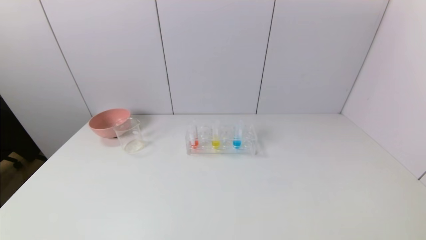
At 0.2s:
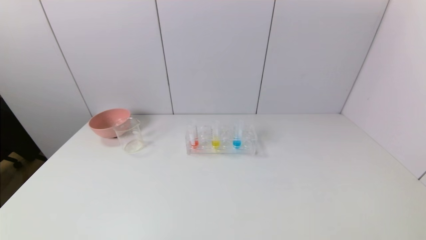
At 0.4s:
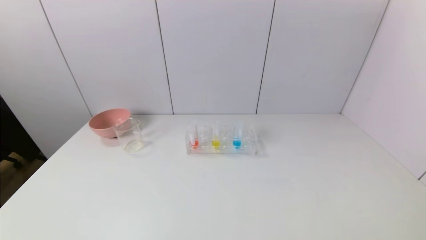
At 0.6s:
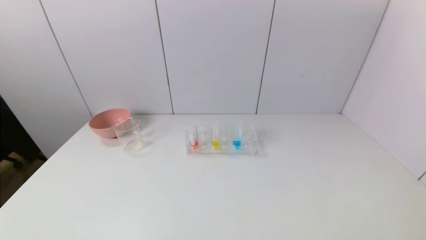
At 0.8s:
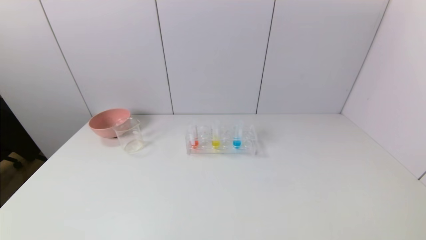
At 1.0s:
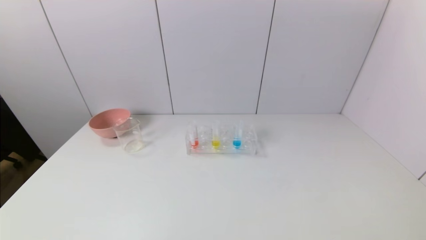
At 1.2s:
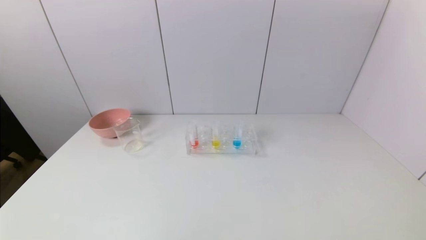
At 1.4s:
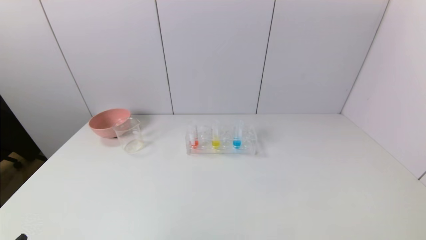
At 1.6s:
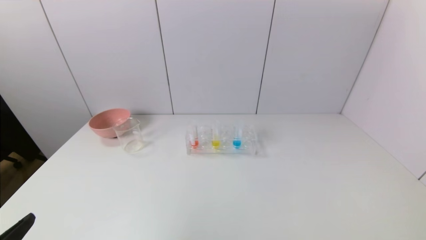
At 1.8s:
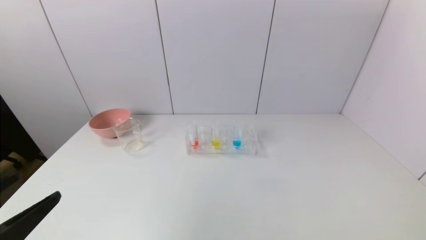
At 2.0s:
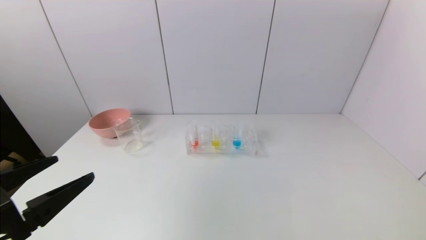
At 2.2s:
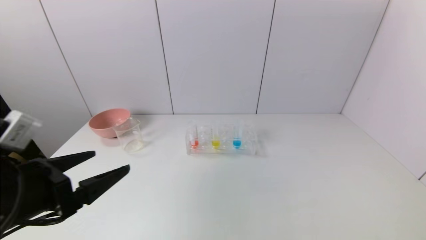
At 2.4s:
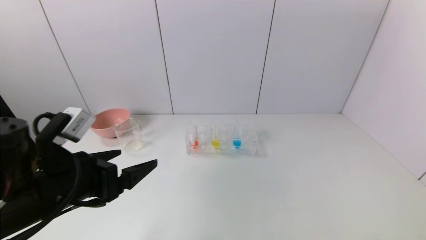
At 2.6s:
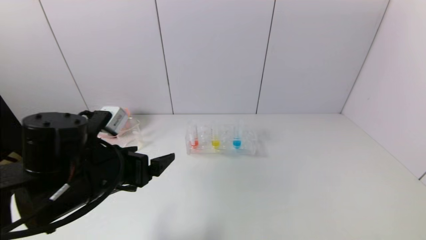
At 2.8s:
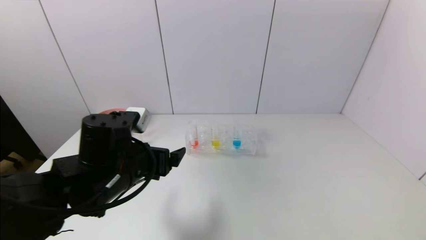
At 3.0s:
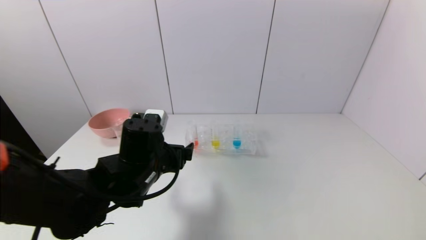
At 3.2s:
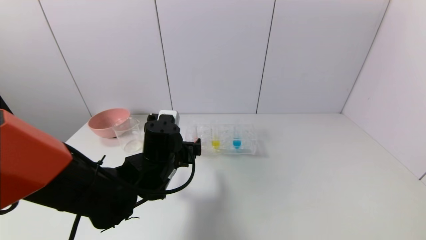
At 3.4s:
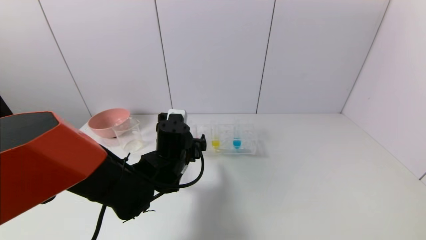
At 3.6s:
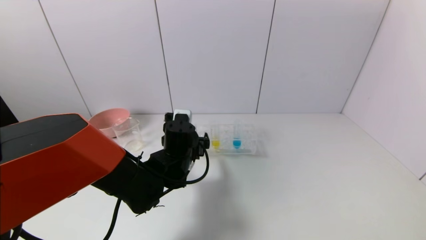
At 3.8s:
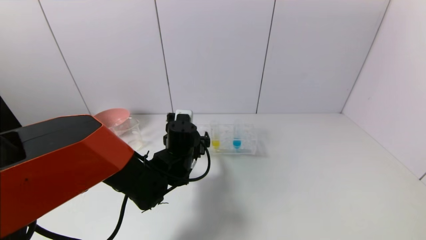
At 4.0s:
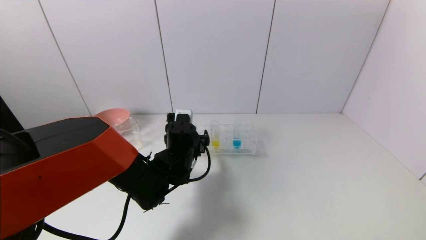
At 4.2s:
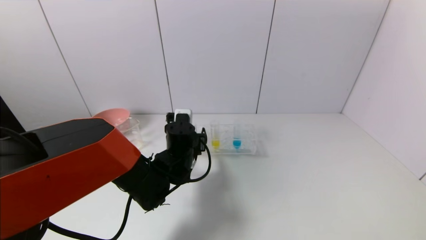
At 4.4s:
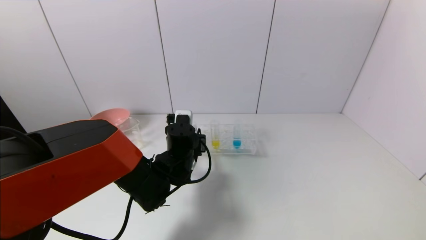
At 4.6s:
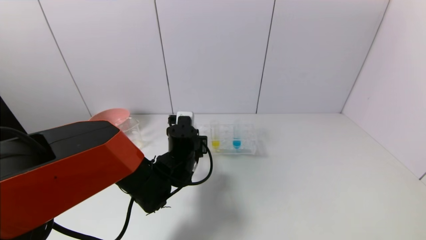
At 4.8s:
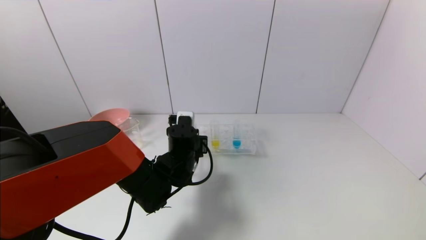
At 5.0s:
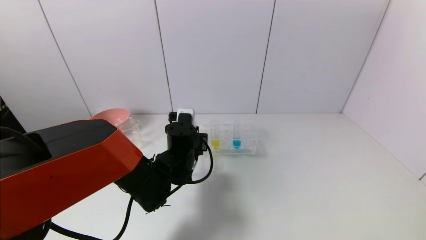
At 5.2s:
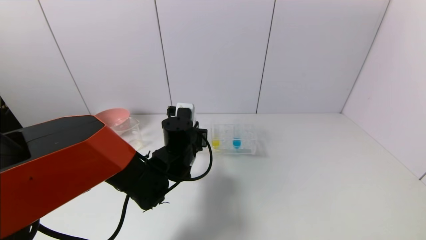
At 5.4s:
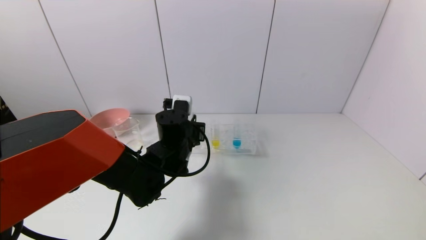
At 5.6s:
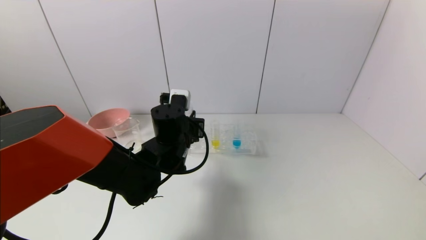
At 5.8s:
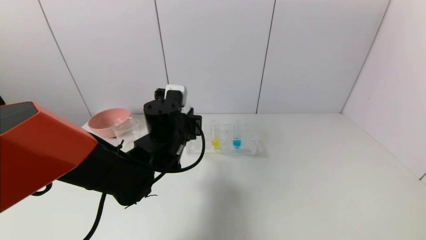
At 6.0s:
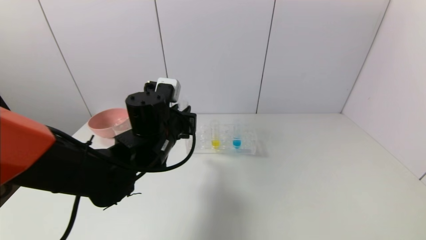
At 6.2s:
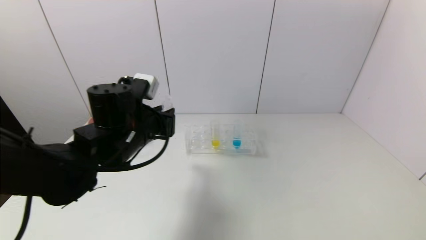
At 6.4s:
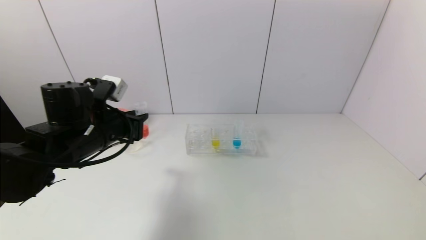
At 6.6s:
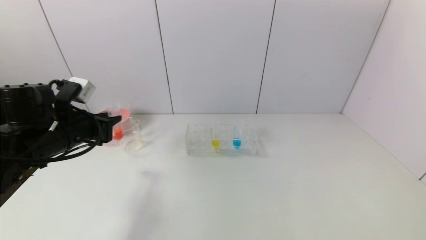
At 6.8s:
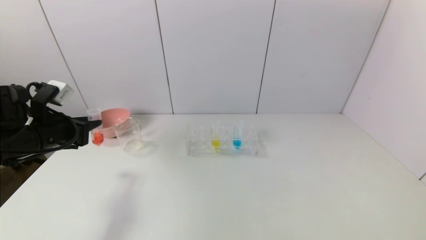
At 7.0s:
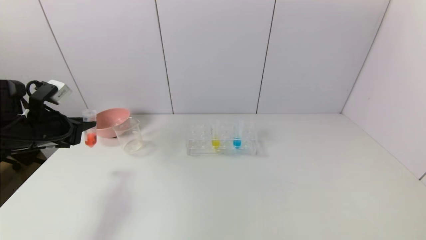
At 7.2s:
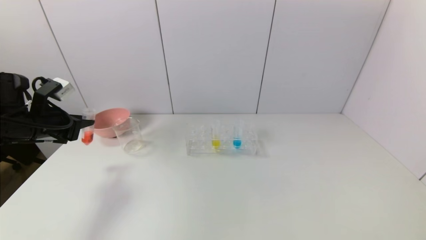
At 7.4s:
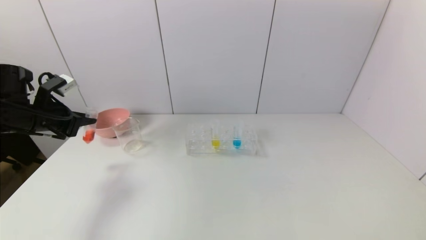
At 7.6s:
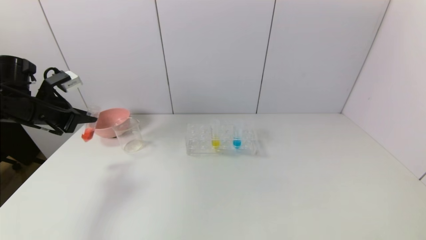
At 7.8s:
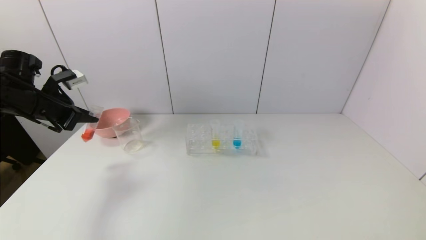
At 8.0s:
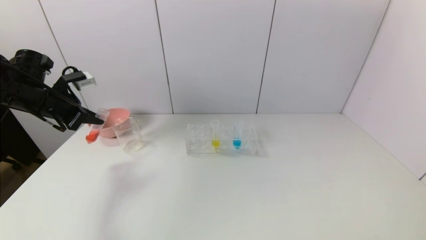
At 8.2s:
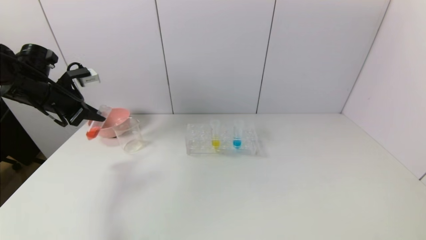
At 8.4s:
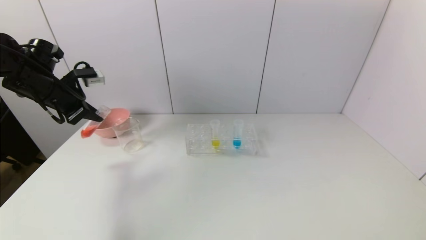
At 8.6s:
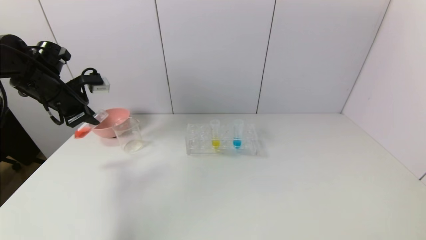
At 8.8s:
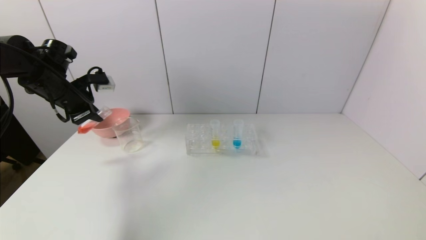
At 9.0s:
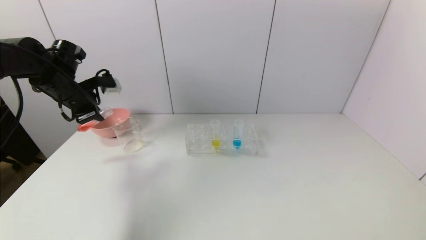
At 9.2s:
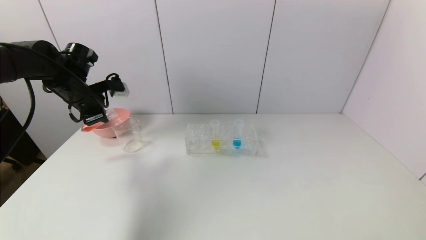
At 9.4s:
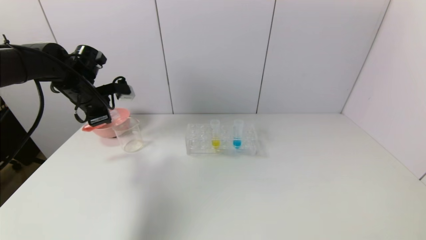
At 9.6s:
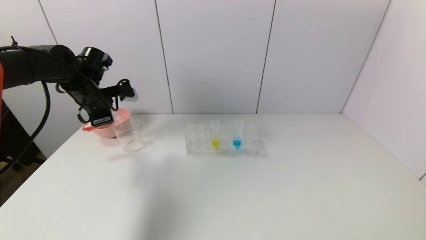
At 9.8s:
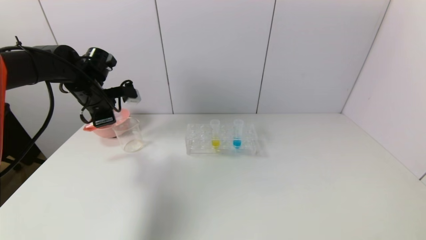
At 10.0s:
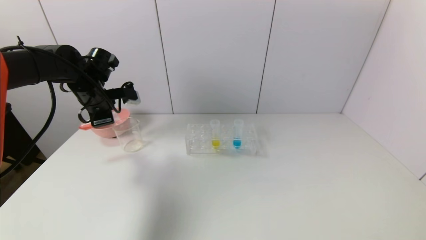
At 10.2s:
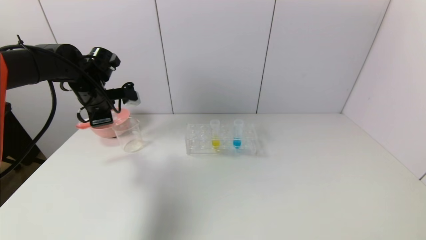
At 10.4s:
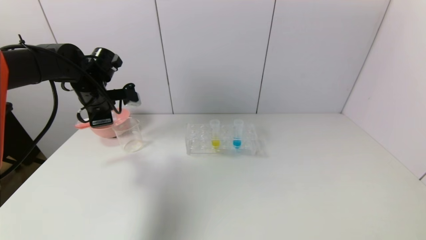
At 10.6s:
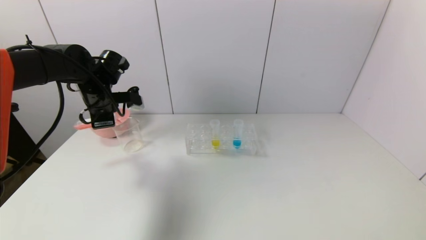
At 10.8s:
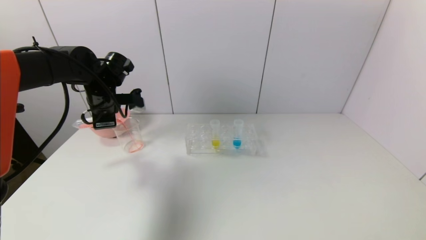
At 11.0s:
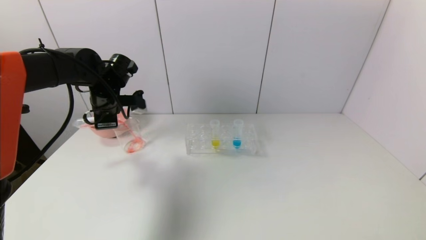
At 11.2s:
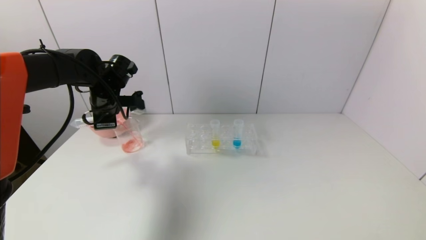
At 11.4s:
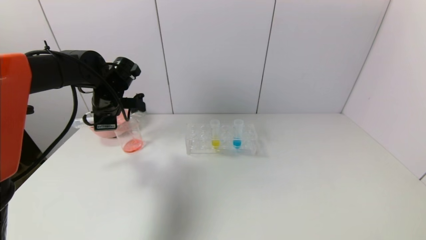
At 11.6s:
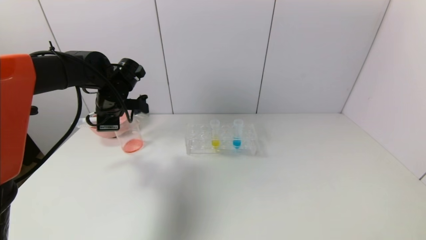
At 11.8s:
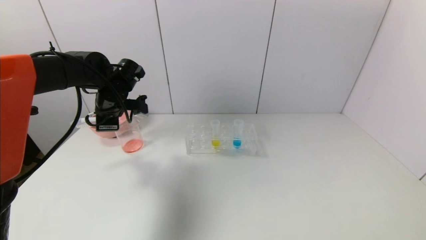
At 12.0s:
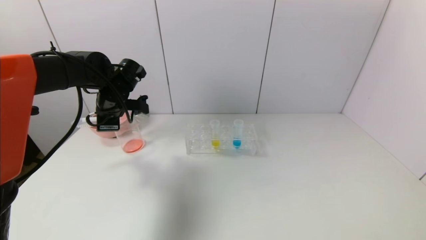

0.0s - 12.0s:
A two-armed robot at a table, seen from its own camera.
Task of the whole recording: pick up the test tube with yellow pigment and the test tube with red pigment by grippers and pour them into the beaker.
Step, 0.0s - 4.8s: Grasp the red reagent with the left gripper.
1.6s - 3.0s: The left gripper is displaced forward and to the right by roughly 30 cm.
3.0s - 4.4s: The left gripper shifts roughly 10 cm forward, to the right and downward, and closes up.
4.4s - 6.0s: The left gripper heads upward, covering approximately 10 cm, and closes up.
6.0s - 7.6s: The left gripper travels to the left by roughly 30 cm.
7.6s - 9.0s: The left gripper goes about 5 cm forward.
9.0s - 10.4s: The left gripper goes some 5 cm to the right.
10.4s - 12.0s: The grippers move only a little.

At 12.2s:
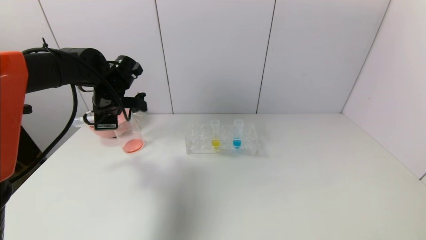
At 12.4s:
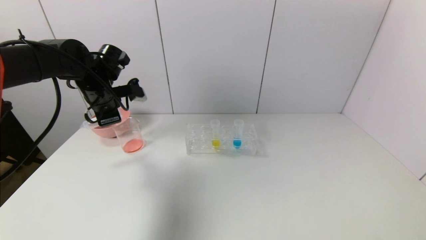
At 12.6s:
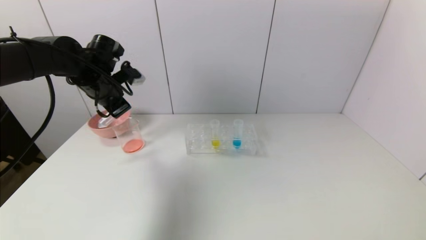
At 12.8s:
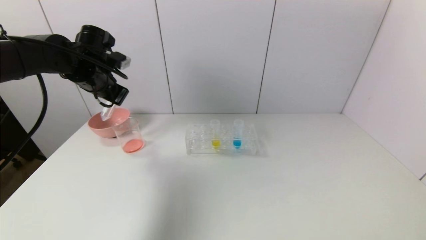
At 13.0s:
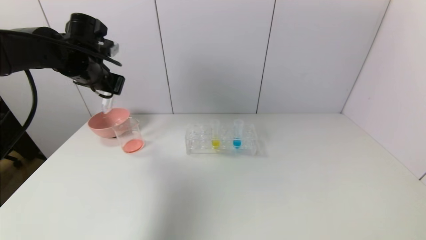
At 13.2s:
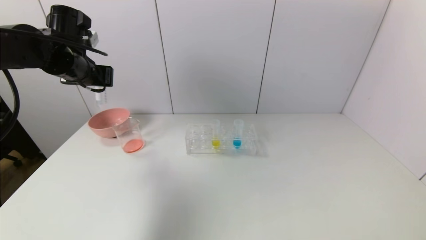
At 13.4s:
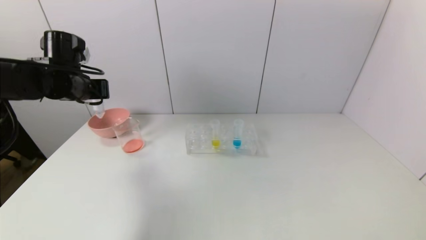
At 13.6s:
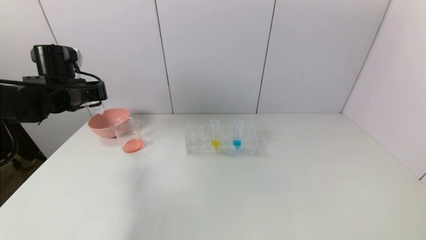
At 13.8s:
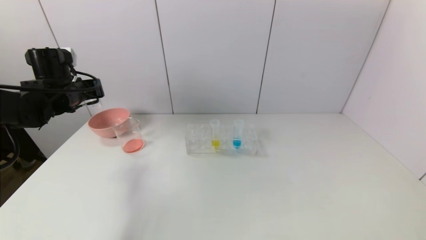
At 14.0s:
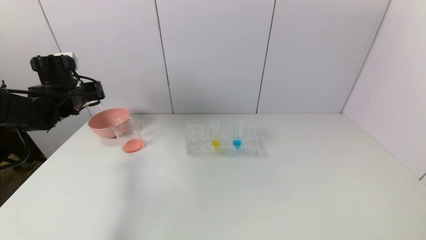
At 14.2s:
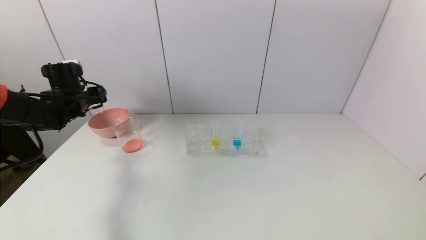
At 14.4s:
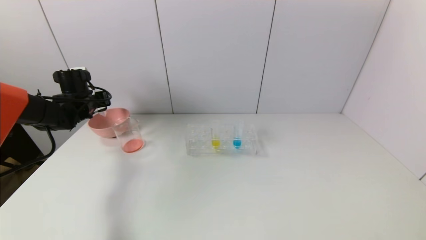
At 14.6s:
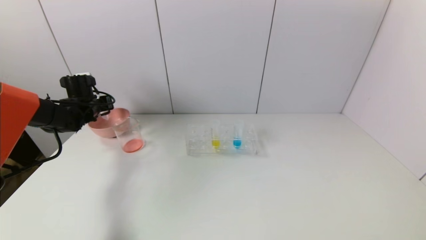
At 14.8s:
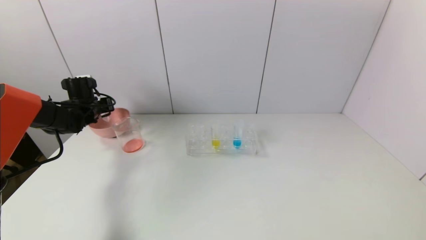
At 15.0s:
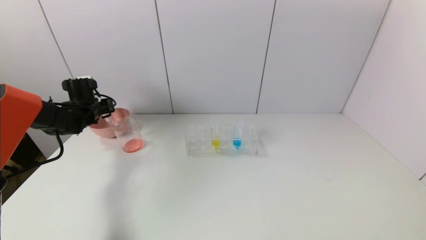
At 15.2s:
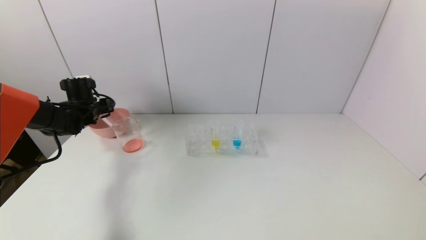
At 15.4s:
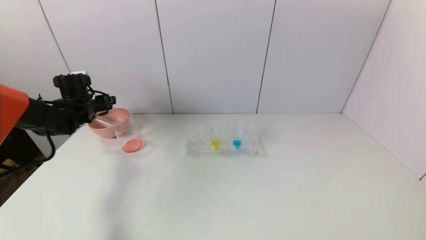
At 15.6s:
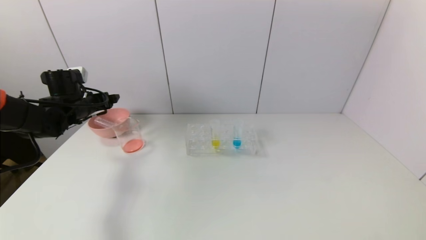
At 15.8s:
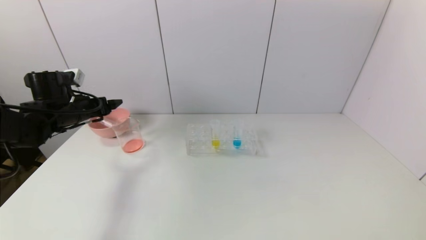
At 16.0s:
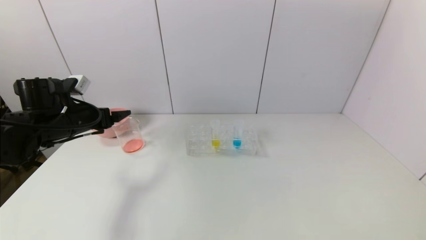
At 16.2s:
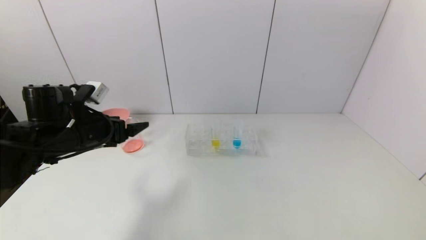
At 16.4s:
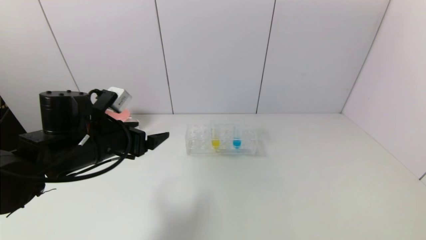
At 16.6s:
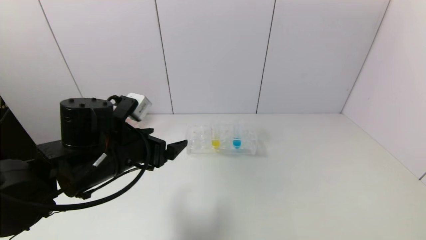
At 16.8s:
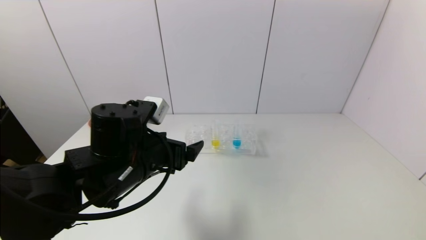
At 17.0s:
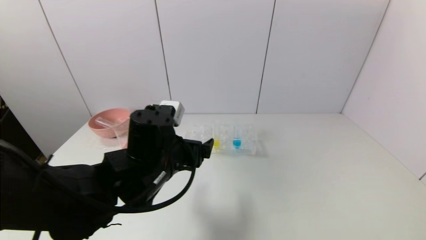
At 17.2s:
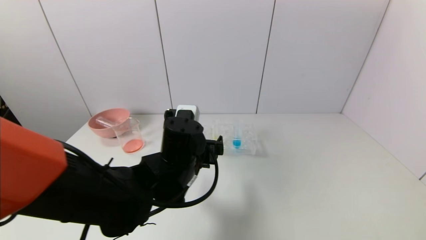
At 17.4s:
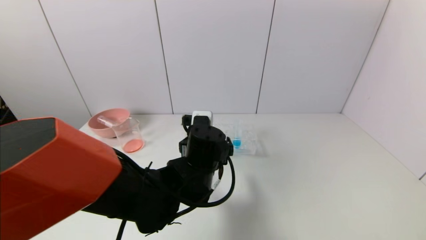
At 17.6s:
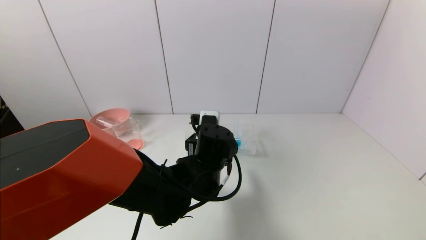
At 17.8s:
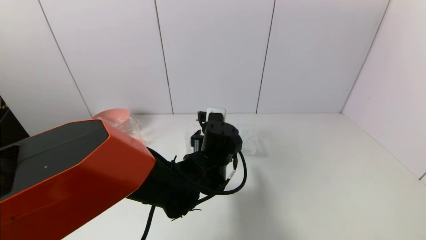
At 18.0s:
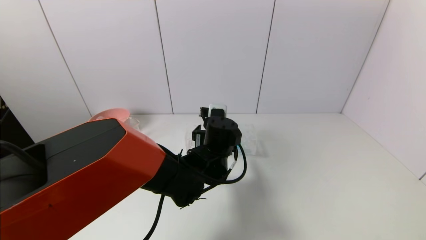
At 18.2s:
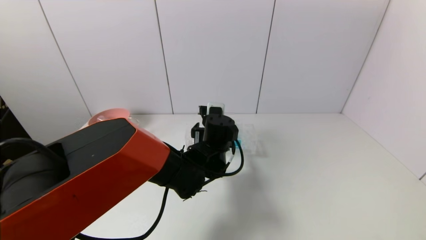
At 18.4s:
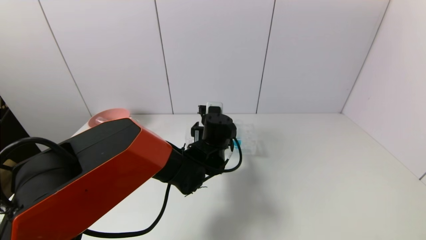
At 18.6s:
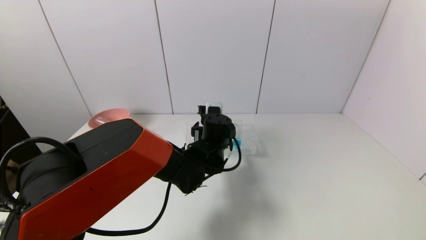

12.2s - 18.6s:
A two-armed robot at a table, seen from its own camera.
Task of the whole recording: pick up the test tube with yellow pigment and the test tube with red pigment by grippers and pour them into the beaker.
Step, 12.4s - 15.2s: Place the test tube into the pink bowl with the left gripper.
12.2s - 13.8s: The left gripper travels to the left by approximately 10 cm.
13.8s - 15.4s: The left gripper travels downward and forward by roughly 10 cm, and opens up.
15.4s - 17.0s: The left gripper goes roughly 35 cm to the right and backward.
17.0s - 18.6s: The left gripper heads forward, to the right and downward, covering about 15 cm.
